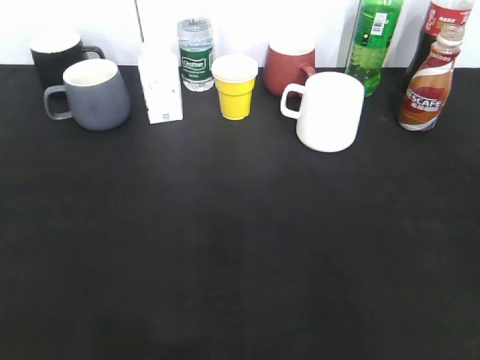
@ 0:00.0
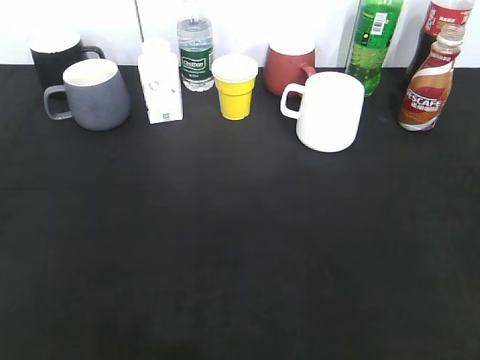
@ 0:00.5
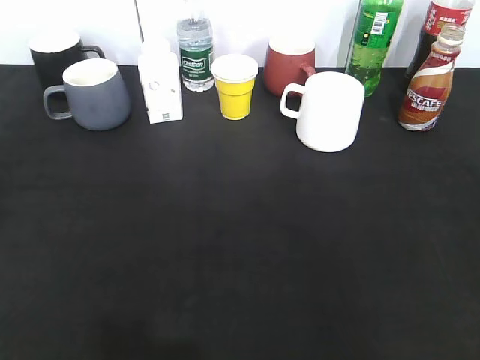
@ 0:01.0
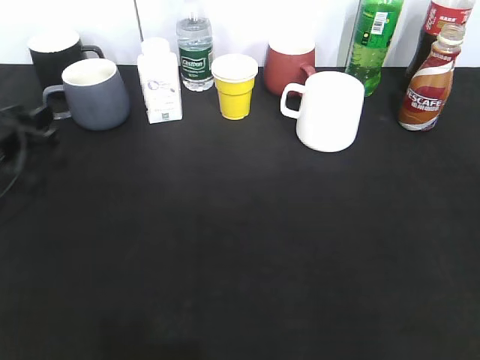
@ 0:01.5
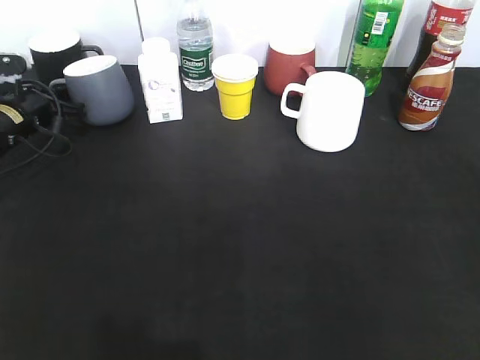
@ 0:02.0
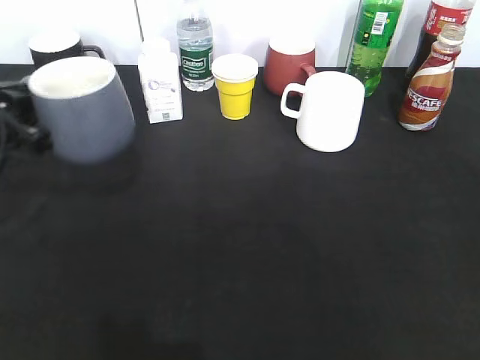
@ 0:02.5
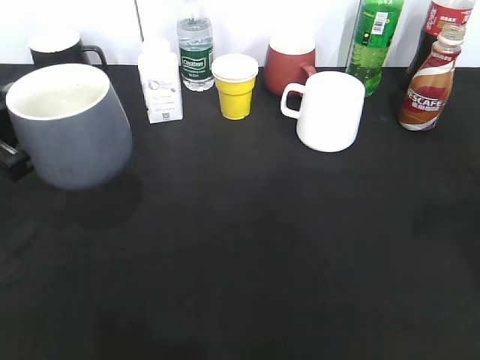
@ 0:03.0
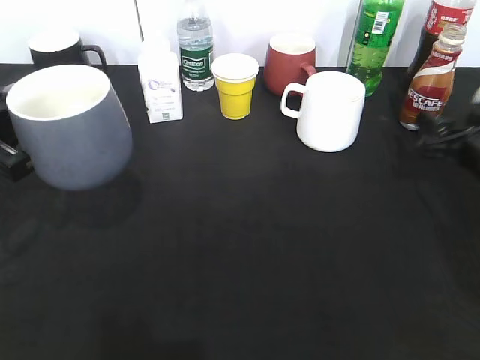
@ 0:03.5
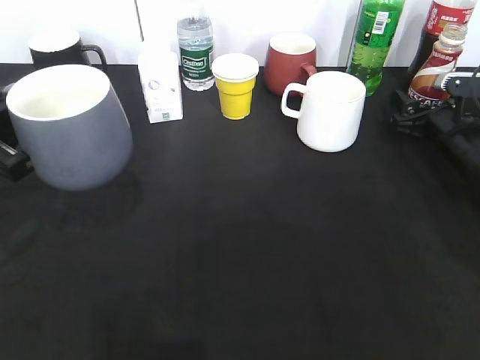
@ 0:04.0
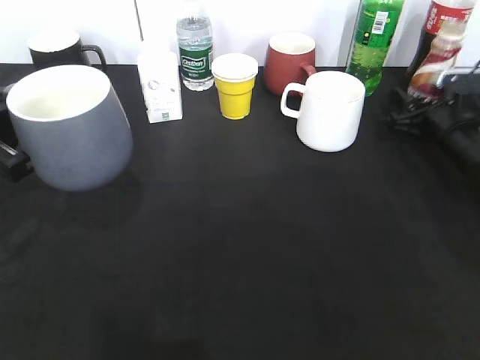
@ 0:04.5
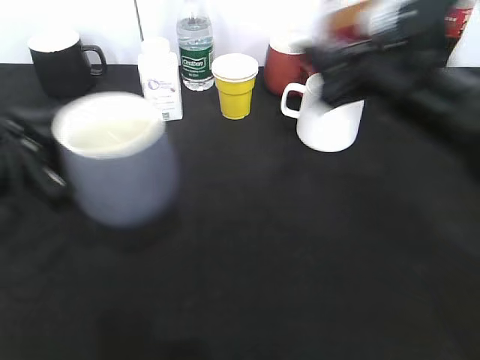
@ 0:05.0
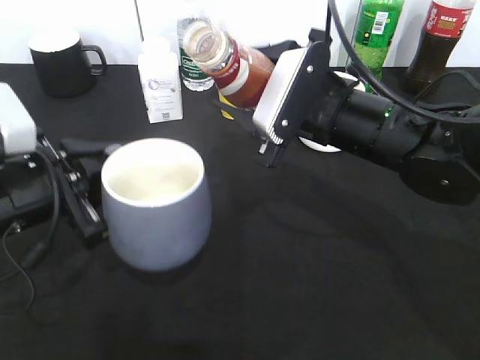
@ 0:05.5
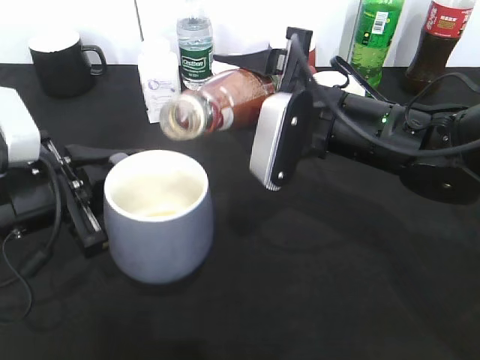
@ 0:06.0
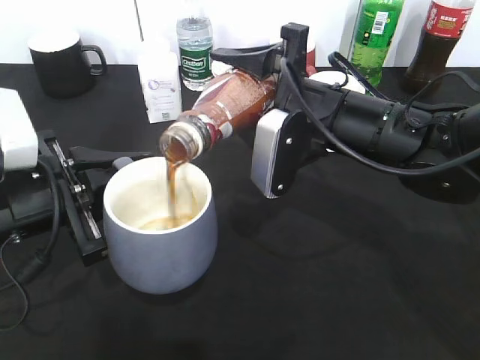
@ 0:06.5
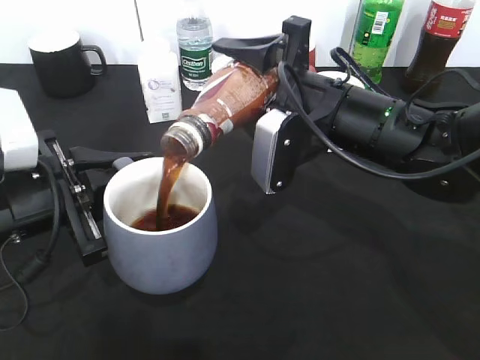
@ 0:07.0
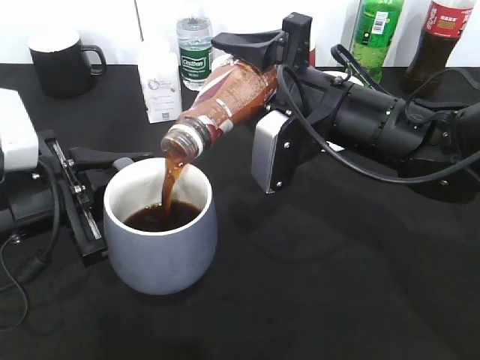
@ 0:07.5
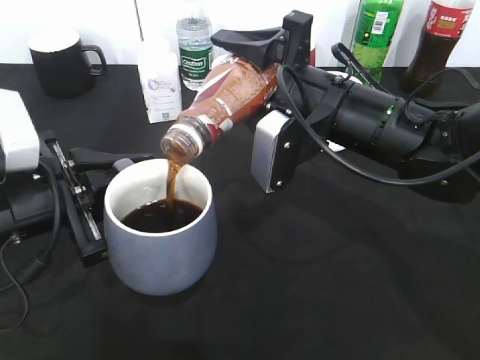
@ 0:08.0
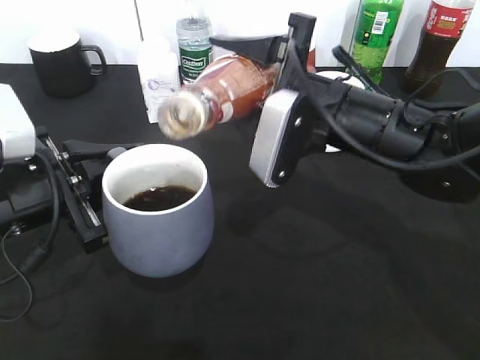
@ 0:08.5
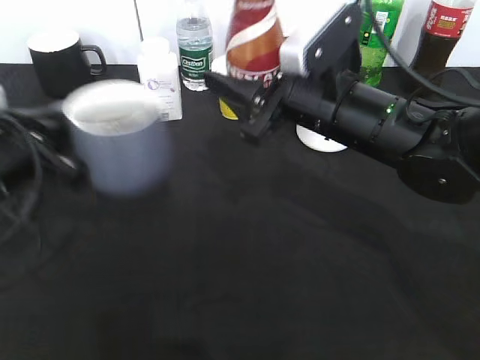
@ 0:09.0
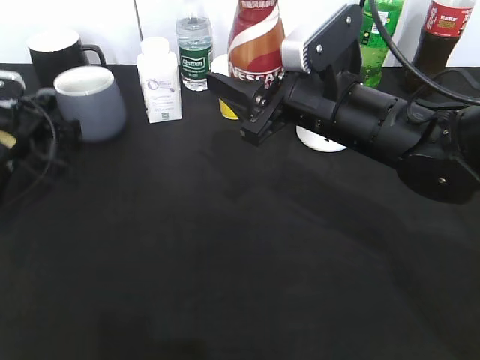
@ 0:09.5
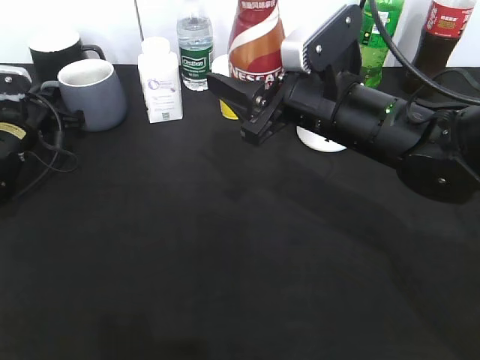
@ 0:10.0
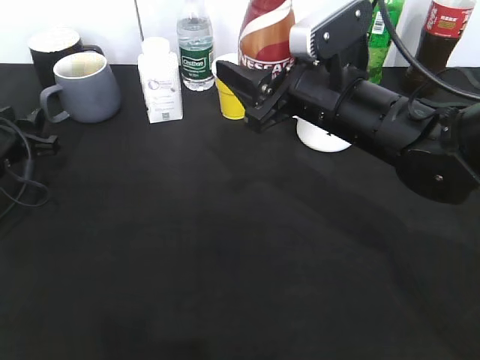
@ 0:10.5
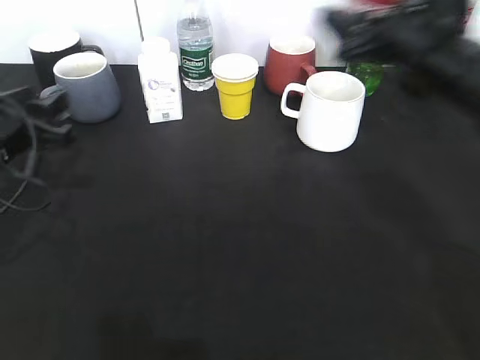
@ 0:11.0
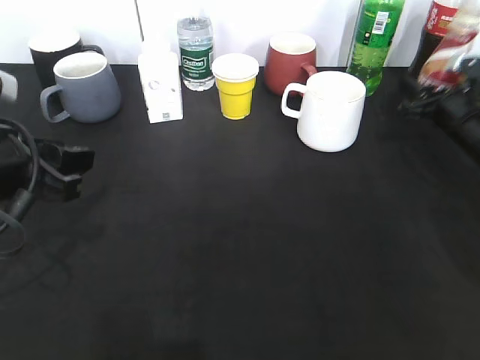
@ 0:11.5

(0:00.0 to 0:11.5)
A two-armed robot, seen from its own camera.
Step, 0:00.0 - 0:01.5: Grasp the grey cup with left gripper.
Step, 0:02.0 - 0:03.0: Lift the grey cup with left gripper.
Step, 0:03.5 - 0:04.0: Grasp the bottle with coffee with right gripper.
Step, 0:05.0 - 0:08.5: Pour the coffee from bottle to cup with right gripper.
0:00.0 - 0:02.0: The left gripper heads forward, covering about 40 cm, and closes its fingers.
0:02.0 - 0:04.0: The right gripper moves forward and downward, approximately 40 cm, and opens its fingers. Meanwhile the left gripper heads backward and upward, covering some 20 cm.
0:04.0 - 0:06.0: The left gripper travels to the right by some 5 cm; the right gripper heads to the left, backward and upward, covering some 25 cm, and closes.
0:07.5 - 0:09.5: The left gripper heads forward and to the left, covering some 20 cm.
0:09.5 - 0:11.5: The left gripper heads backward, upward and to the right, covering roughly 20 cm, and opens its fingers. Meanwhile the right gripper travels to the right, forward and downward by roughly 25 cm.

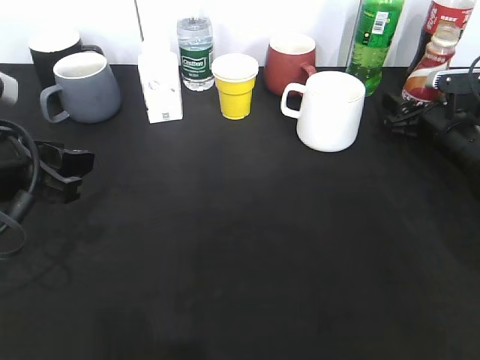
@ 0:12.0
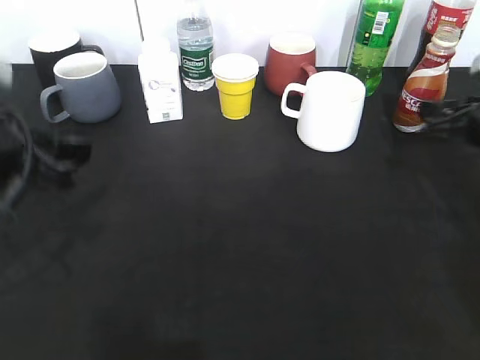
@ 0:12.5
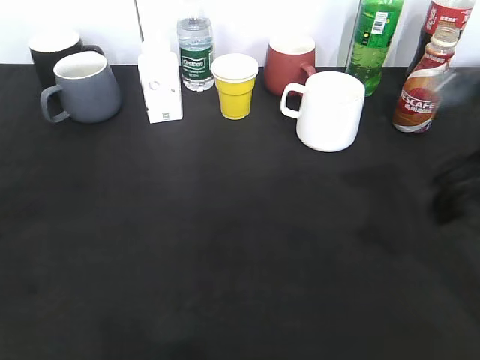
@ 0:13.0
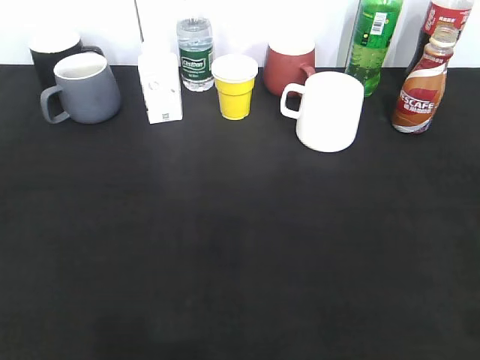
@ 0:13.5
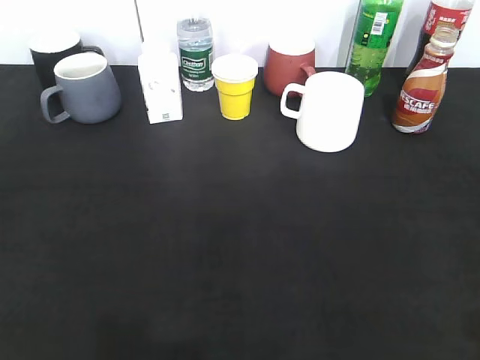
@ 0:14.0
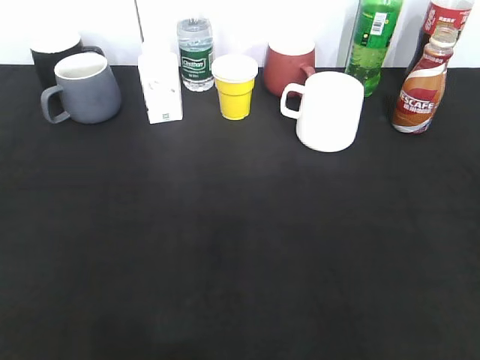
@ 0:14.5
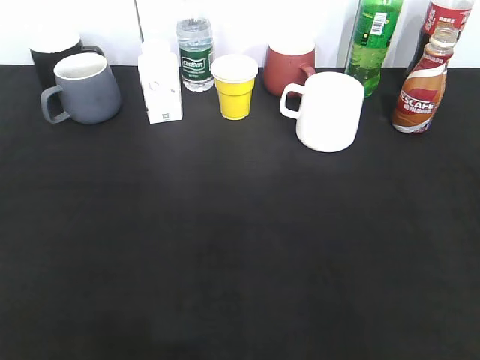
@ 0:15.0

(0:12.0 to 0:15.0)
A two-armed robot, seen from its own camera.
0:12.0 - 0:13.5: The right gripper shifts roughly 40 cm backward and upward. The left gripper travels backward and to the left by about 25 cm.

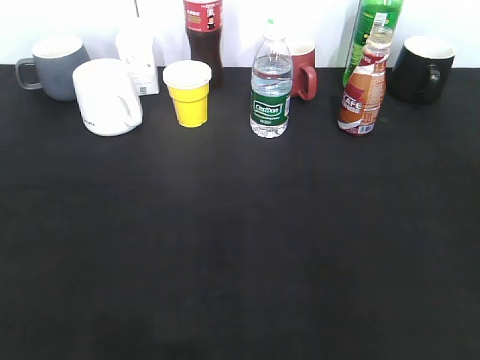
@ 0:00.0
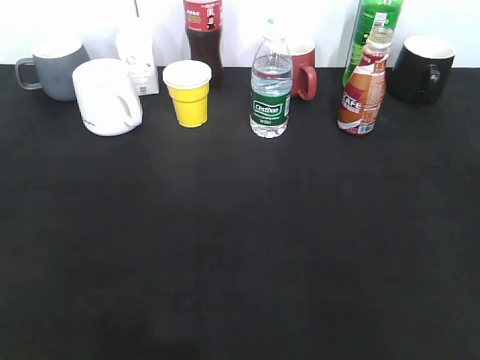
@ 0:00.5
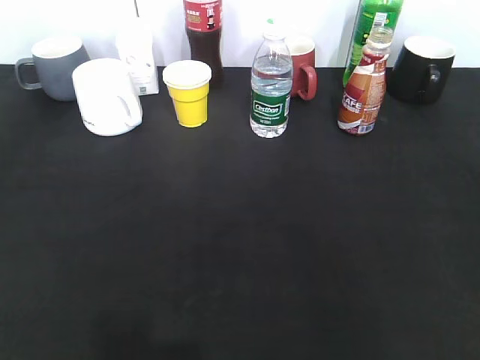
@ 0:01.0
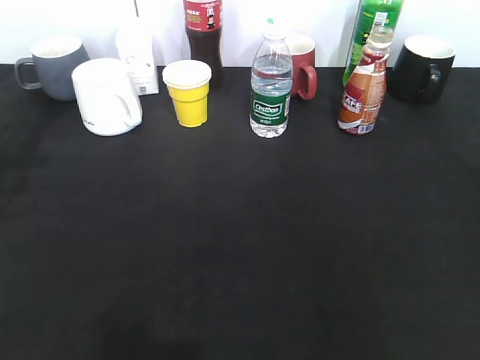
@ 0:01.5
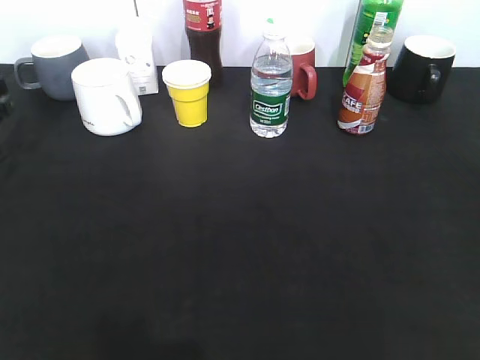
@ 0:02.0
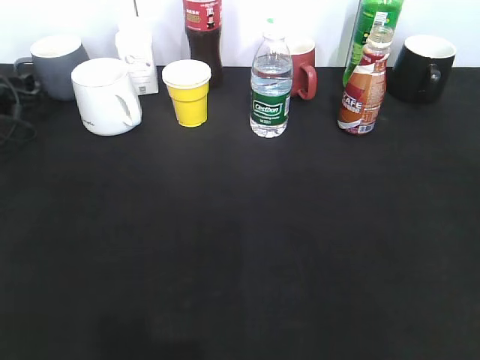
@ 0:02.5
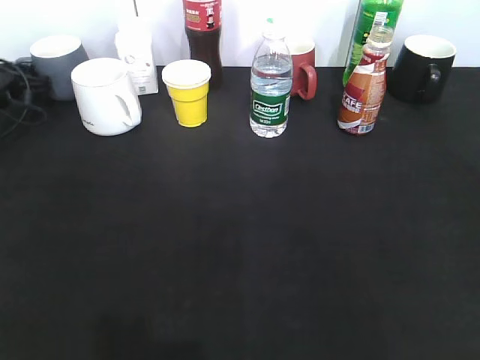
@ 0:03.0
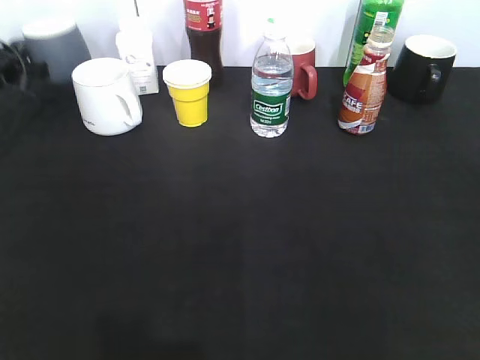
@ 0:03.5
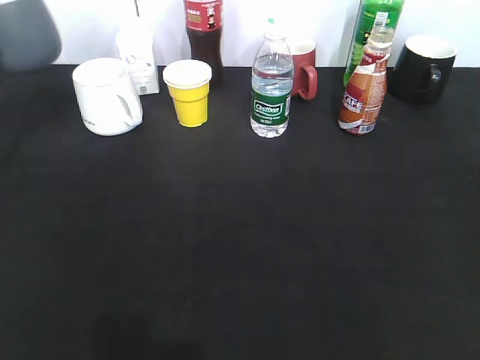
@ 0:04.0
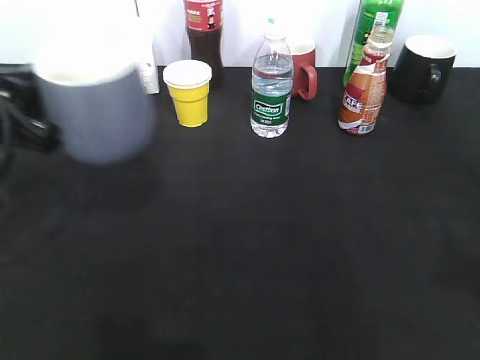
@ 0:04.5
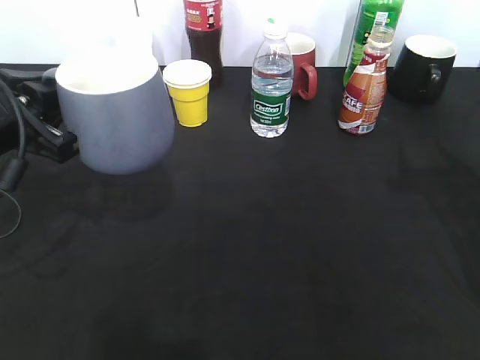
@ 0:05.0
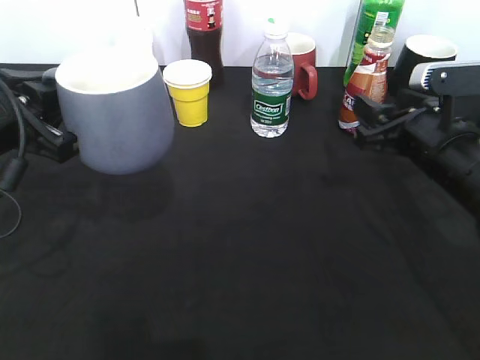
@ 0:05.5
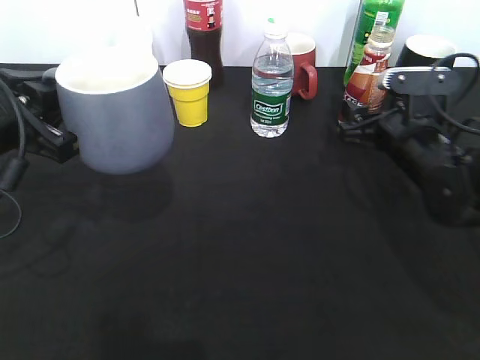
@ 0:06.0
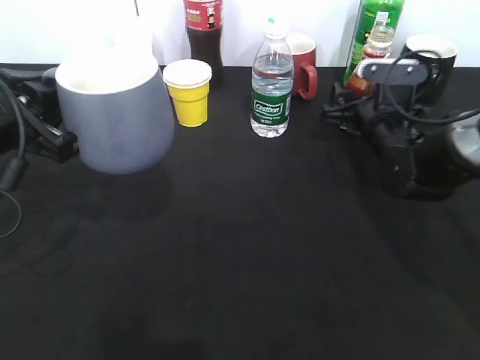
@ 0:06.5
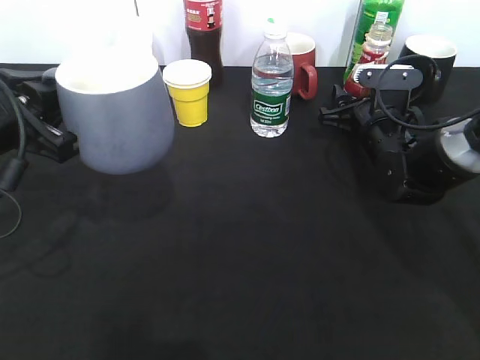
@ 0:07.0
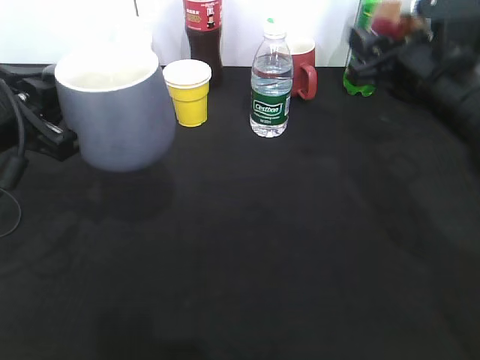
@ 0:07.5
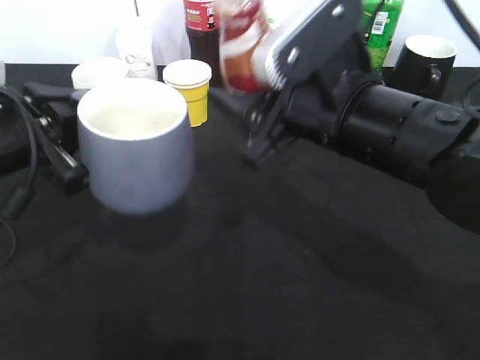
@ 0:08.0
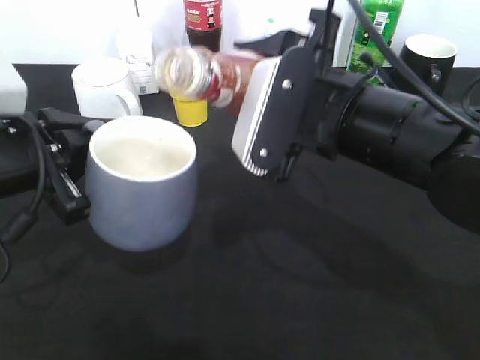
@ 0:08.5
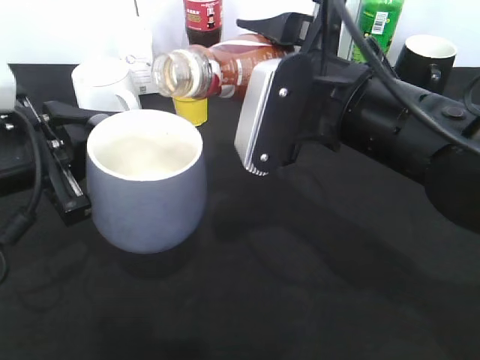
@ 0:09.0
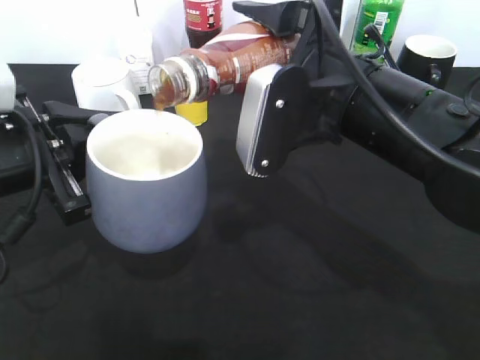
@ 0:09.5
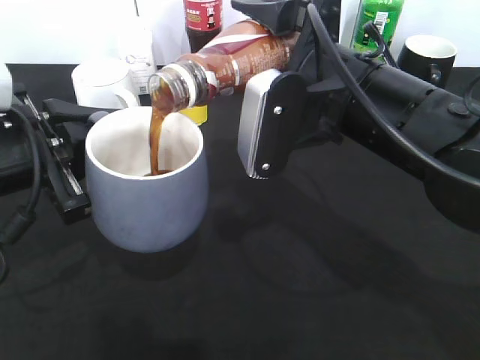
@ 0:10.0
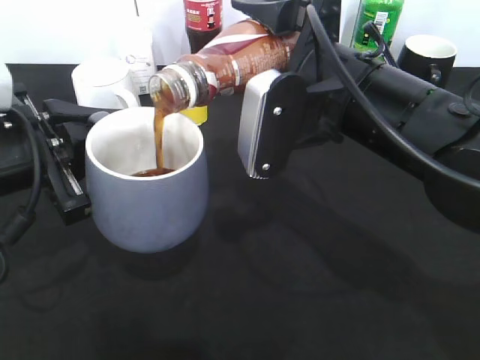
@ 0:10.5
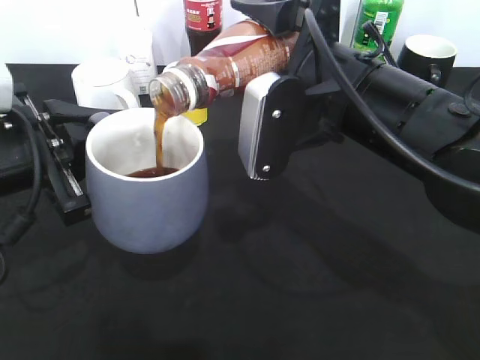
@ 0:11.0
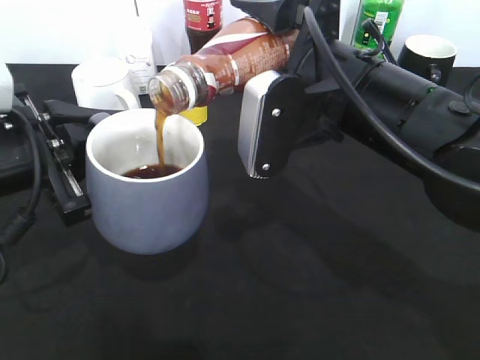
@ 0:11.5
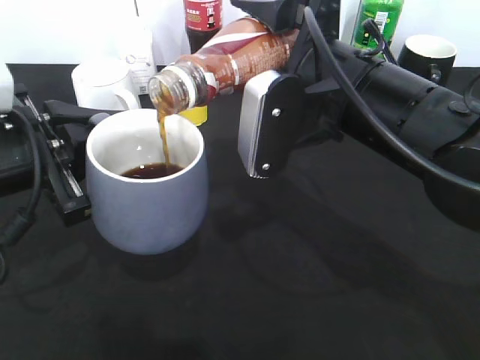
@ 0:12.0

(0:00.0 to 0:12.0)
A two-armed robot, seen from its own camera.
Step, 0:03.5 - 0:04.5: Lift the grey cup with left gripper.
Step, 0:05.0 - 0:07.0: Grasp the bottle with coffee with right gripper.
0:00.0 - 0:02.0: The left gripper is displaced forward by approximately 35 cm.
0:02.0 - 0:04.0: The left gripper travels upward by roughly 5 cm, moves about 15 cm forward and comes back, and closes up.
0:04.0 - 0:06.0: The left gripper travels backward and to the right by about 15 cm; the right gripper heads forward and downward, covering some 40 cm, and opens.
0:06.0 - 0:08.0: The right gripper heads to the left, upward and backward, covering about 20 cm, and closes its fingers.
0:10.0 - 0:12.0: The two grippers keep their place.
